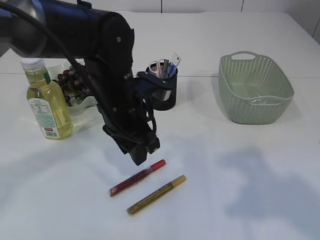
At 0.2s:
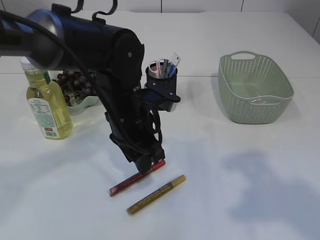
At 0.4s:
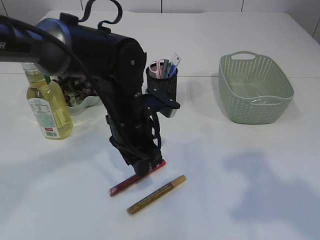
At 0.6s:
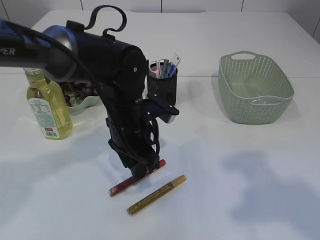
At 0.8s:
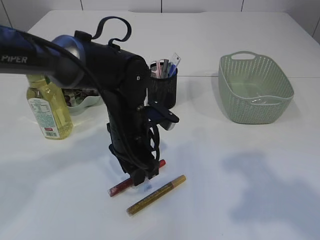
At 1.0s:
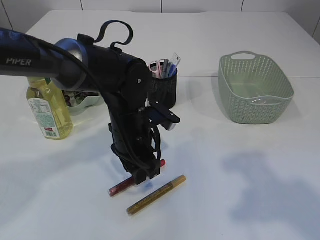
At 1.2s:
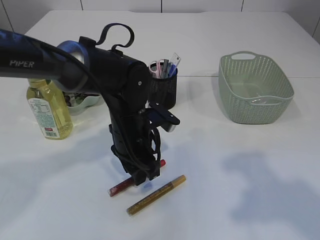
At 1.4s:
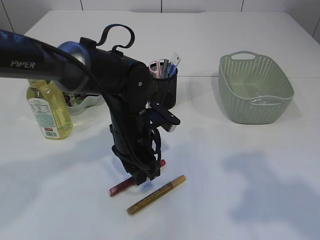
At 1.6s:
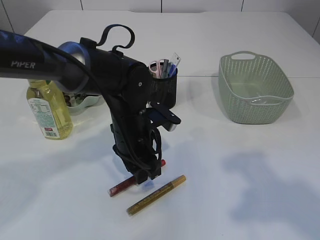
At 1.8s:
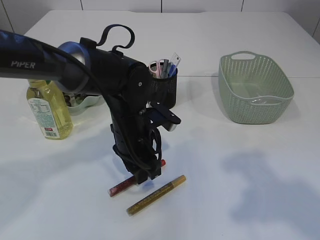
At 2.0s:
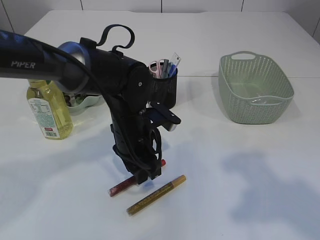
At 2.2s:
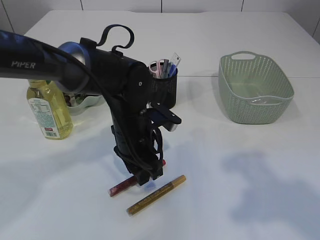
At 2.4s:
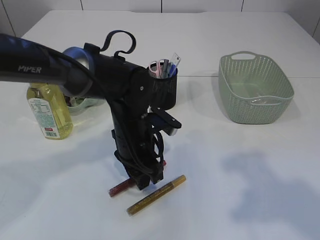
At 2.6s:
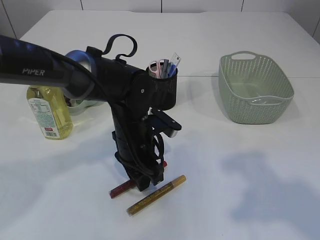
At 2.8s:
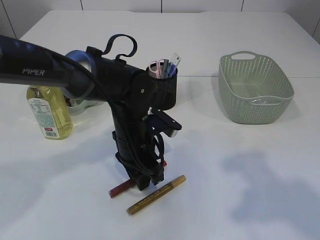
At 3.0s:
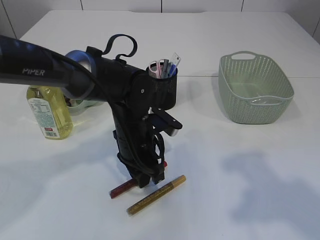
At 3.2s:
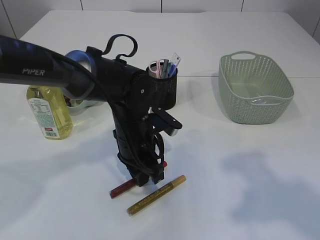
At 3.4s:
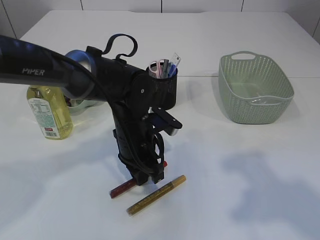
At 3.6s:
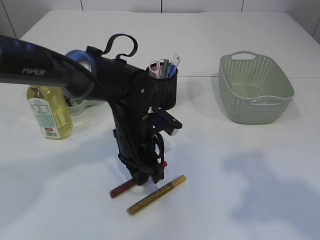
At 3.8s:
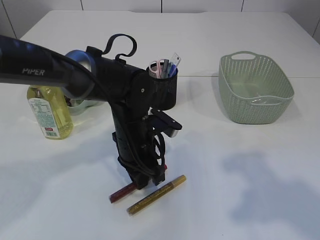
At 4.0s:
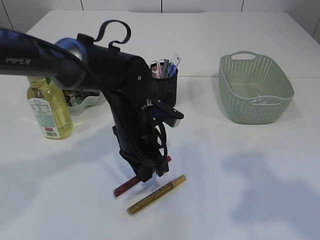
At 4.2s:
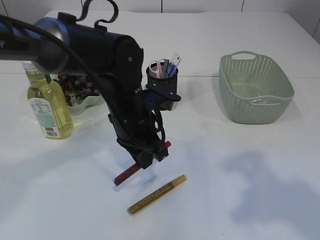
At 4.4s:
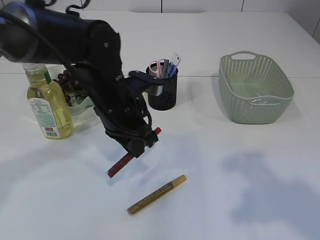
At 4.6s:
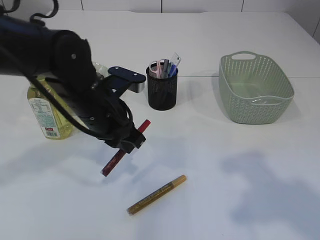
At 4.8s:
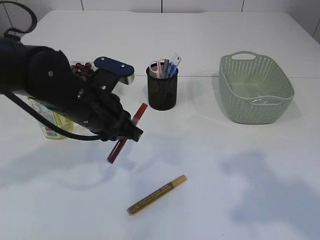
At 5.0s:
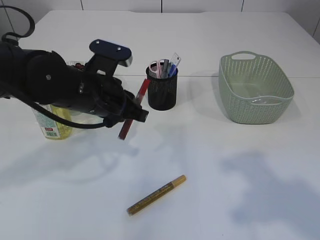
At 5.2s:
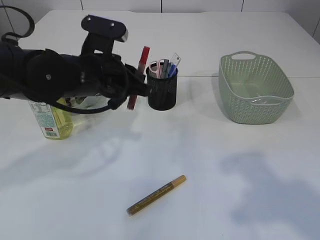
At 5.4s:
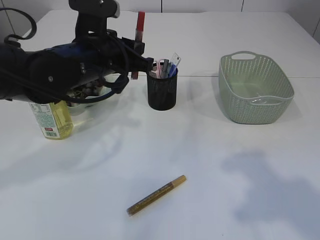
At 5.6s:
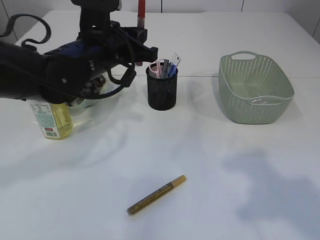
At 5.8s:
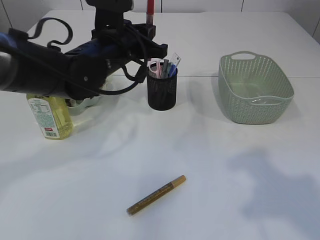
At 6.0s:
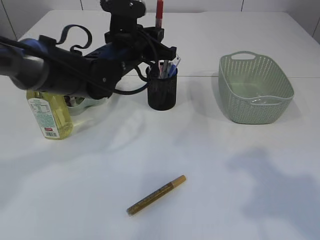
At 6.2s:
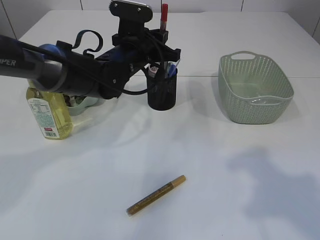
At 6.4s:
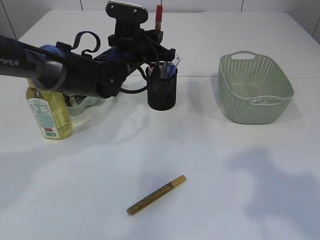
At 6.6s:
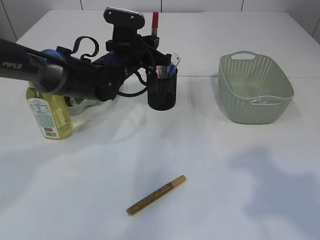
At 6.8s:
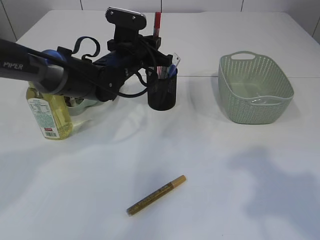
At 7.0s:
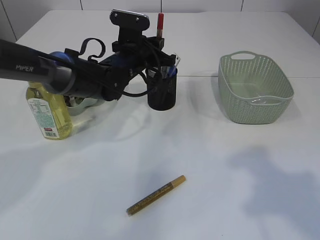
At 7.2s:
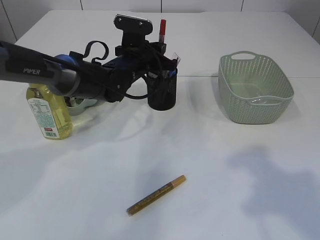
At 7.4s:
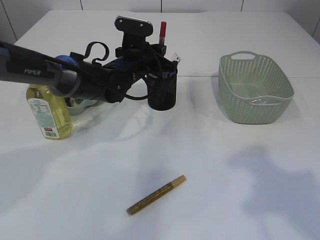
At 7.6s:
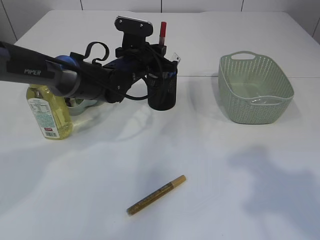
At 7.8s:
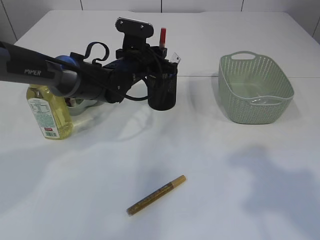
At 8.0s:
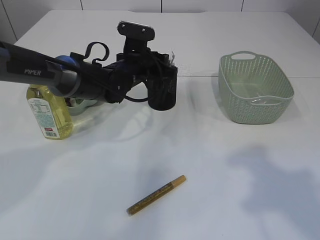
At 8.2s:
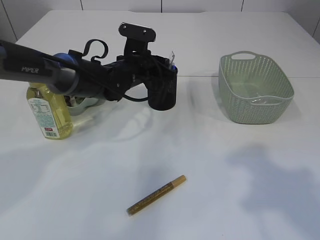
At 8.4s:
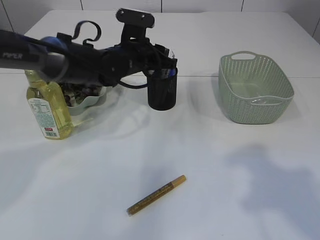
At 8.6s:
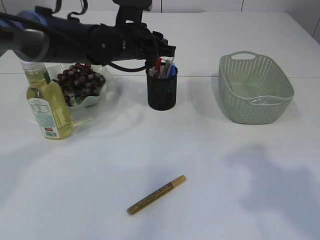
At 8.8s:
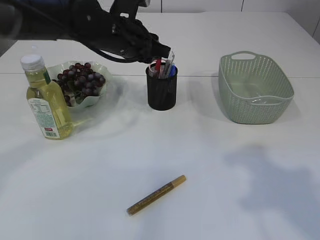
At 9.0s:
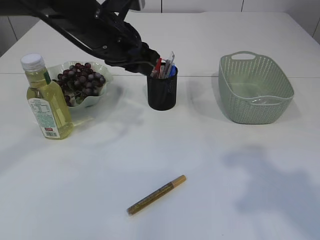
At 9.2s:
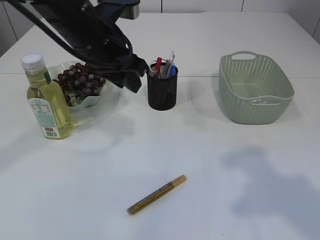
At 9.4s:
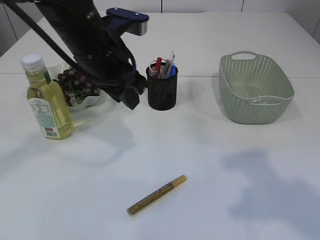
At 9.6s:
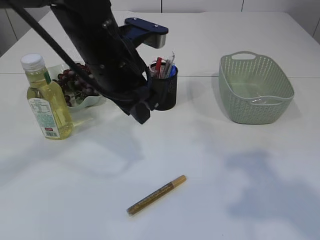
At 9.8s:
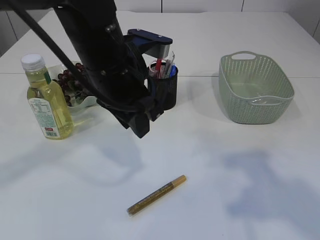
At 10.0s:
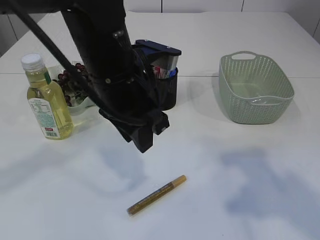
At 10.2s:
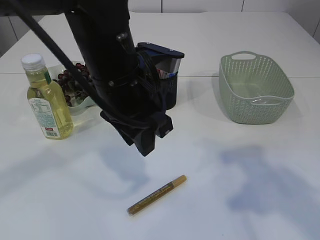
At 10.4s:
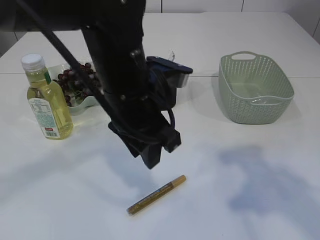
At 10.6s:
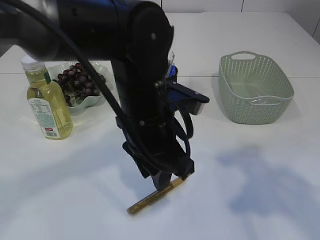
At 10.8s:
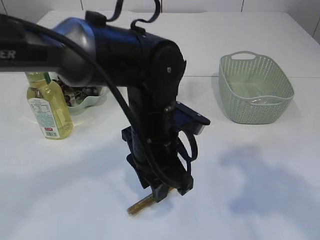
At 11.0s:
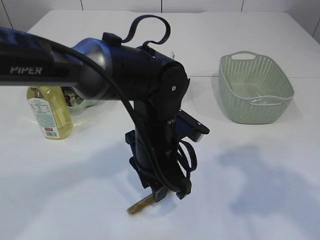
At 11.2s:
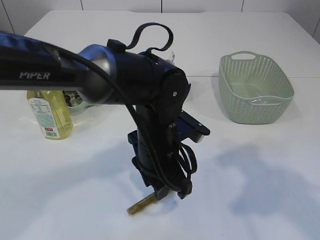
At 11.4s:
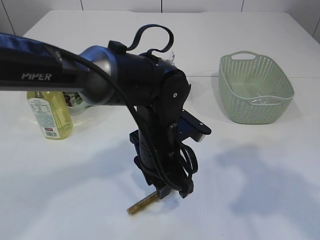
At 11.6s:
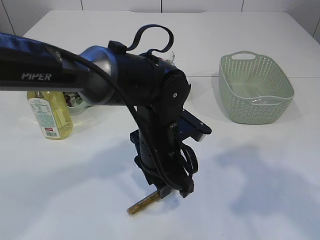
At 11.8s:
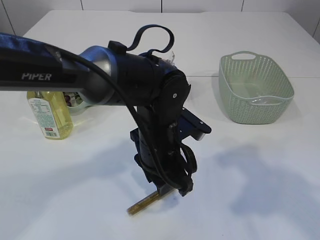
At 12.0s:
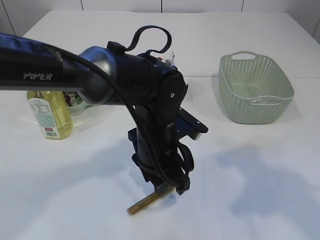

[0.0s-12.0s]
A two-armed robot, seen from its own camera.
Step, 0.0s to 4.8s: pick up the red glue.
Step, 5.0s to 9.2s: place the red glue into the pen holder.
0.0s to 1.6s: The left gripper heads downward, covering some 5 cm.
1.6s to 3.0s: Neither gripper changes place.
3.0s to 4.4s: The left gripper shifts approximately 5 cm upward.
4.4s to 6.0s: The left gripper moves forward, approximately 10 cm.
6.0s to 7.6s: The left gripper travels downward and forward by some 5 cm.
7.6s to 9.0s: The left gripper moves upward and backward, some 15 cm, and opens up.
9.0s to 10.4s: The left gripper moves backward, approximately 10 cm.
10.4s to 12.0s: The left gripper is displaced downward by some 10 cm.

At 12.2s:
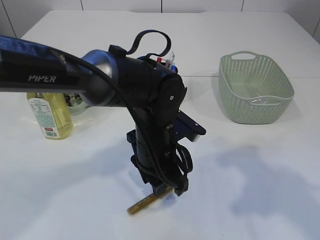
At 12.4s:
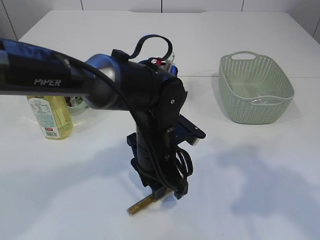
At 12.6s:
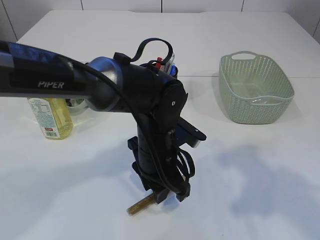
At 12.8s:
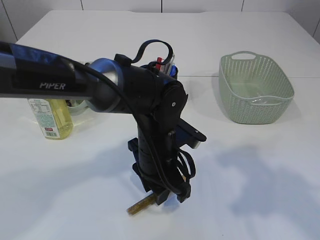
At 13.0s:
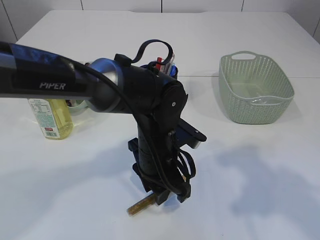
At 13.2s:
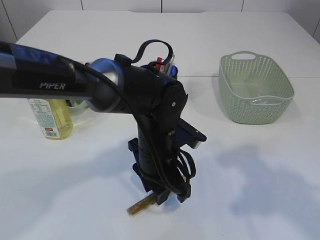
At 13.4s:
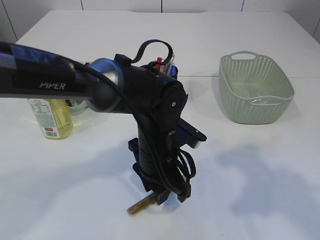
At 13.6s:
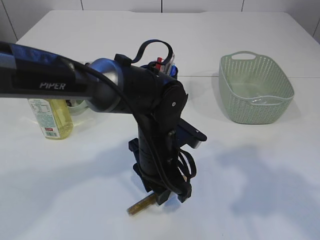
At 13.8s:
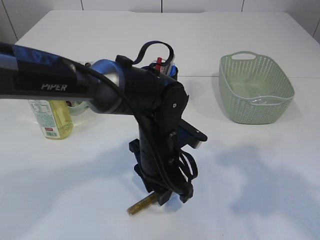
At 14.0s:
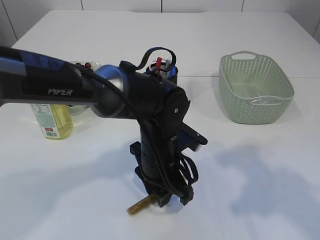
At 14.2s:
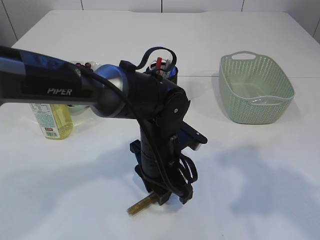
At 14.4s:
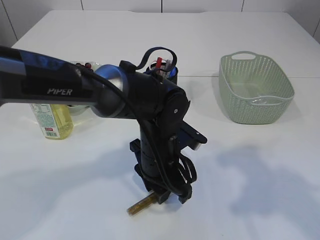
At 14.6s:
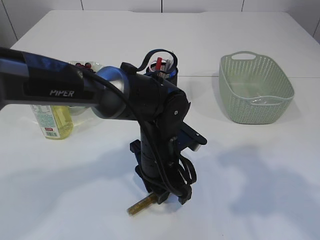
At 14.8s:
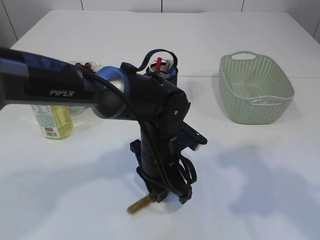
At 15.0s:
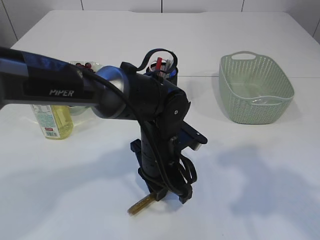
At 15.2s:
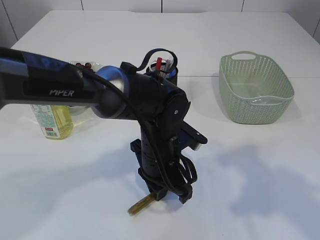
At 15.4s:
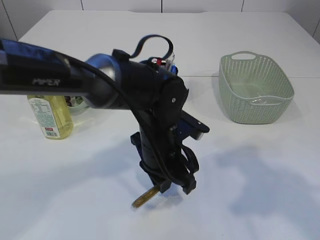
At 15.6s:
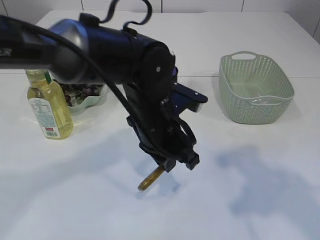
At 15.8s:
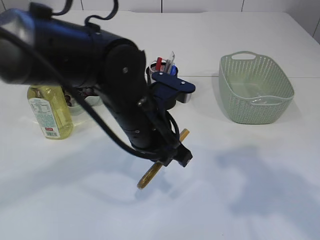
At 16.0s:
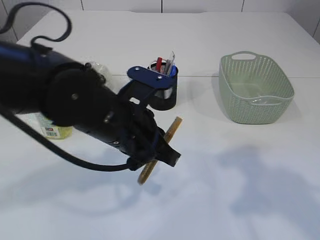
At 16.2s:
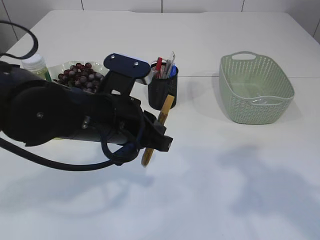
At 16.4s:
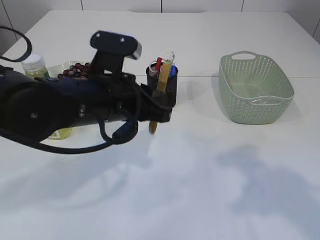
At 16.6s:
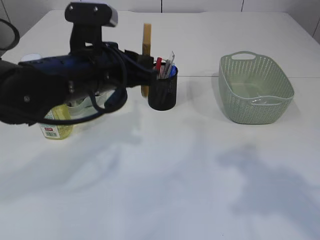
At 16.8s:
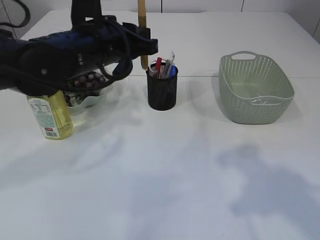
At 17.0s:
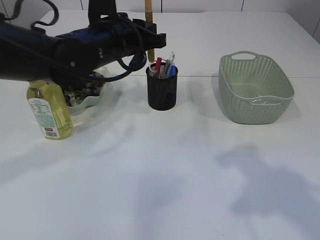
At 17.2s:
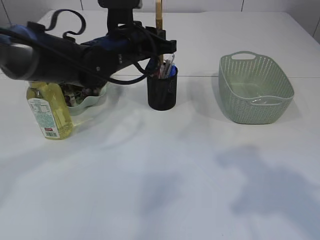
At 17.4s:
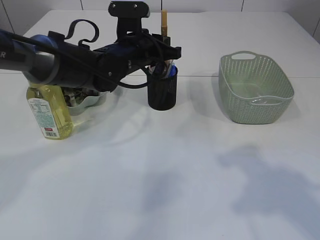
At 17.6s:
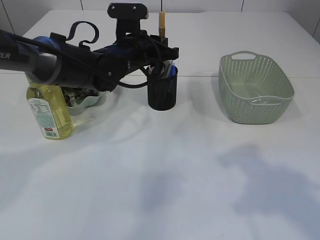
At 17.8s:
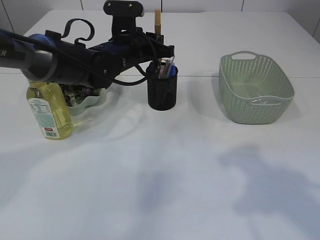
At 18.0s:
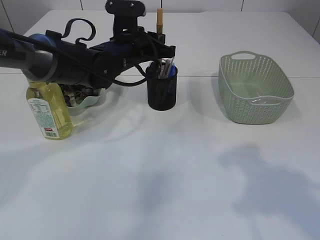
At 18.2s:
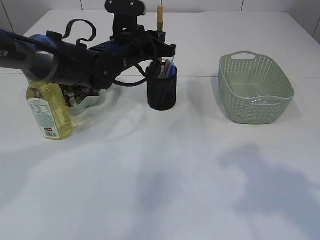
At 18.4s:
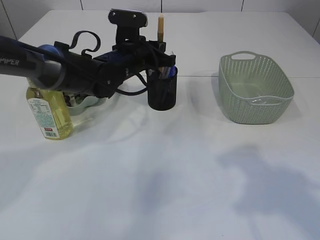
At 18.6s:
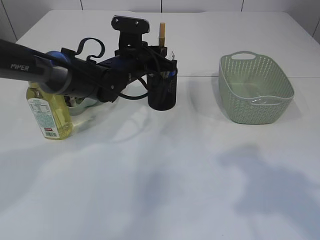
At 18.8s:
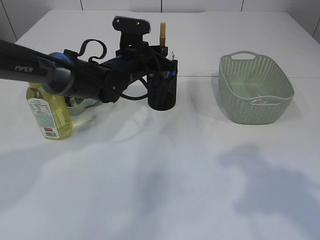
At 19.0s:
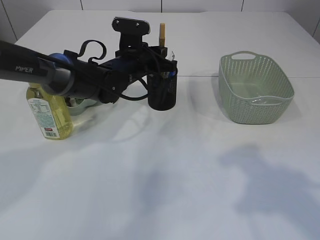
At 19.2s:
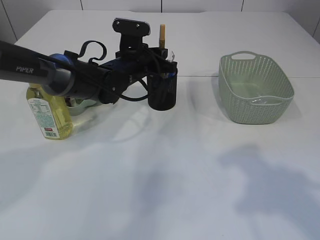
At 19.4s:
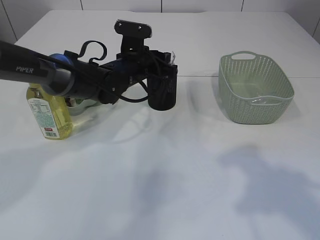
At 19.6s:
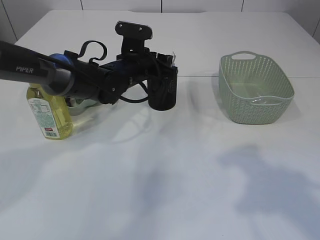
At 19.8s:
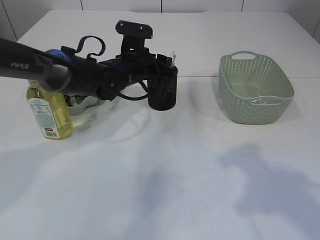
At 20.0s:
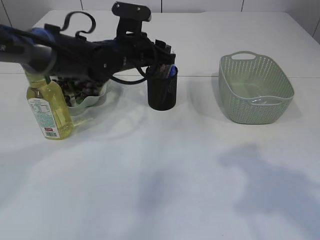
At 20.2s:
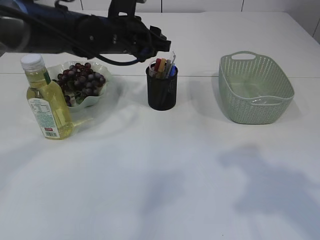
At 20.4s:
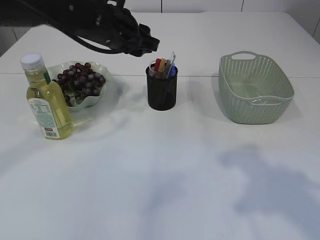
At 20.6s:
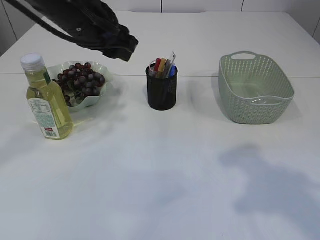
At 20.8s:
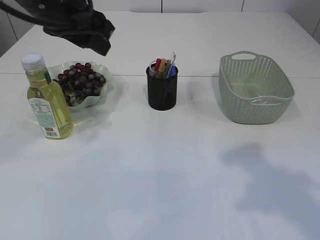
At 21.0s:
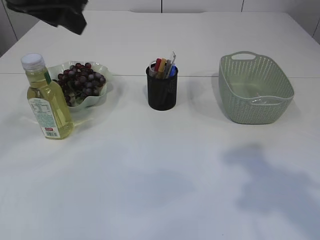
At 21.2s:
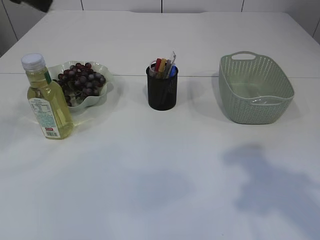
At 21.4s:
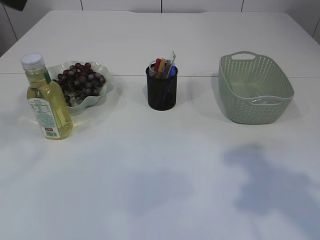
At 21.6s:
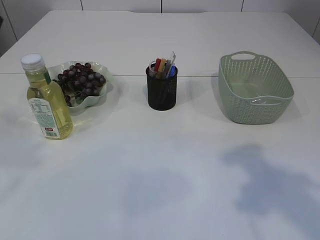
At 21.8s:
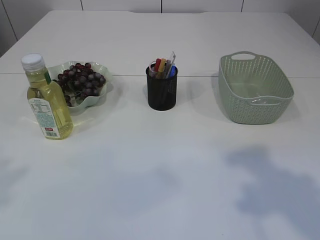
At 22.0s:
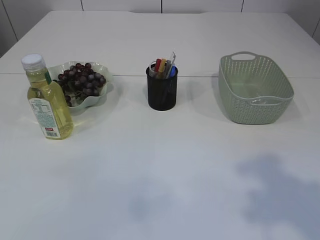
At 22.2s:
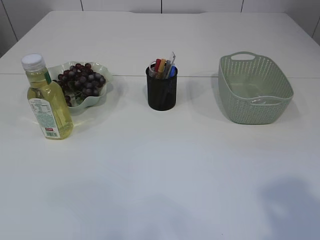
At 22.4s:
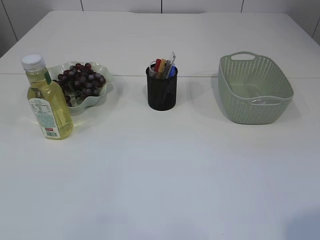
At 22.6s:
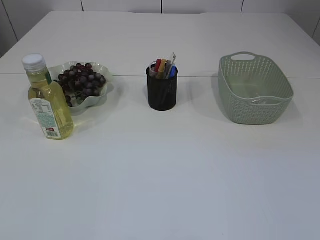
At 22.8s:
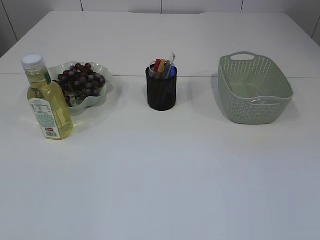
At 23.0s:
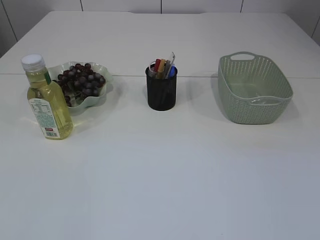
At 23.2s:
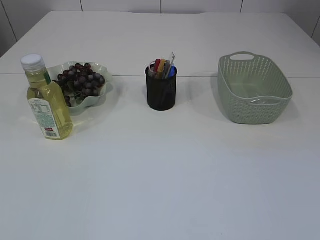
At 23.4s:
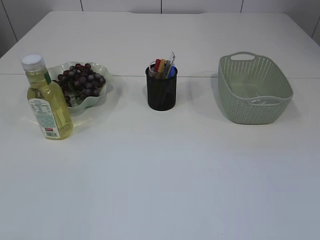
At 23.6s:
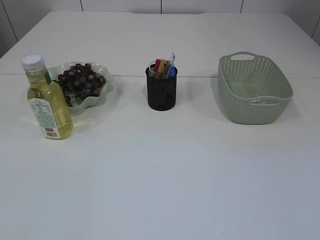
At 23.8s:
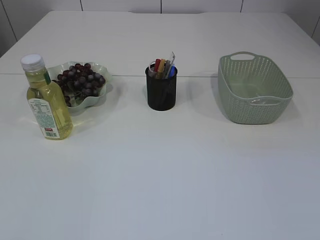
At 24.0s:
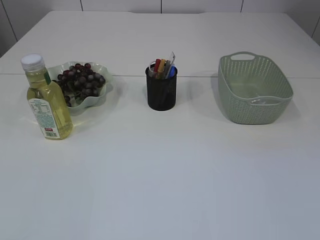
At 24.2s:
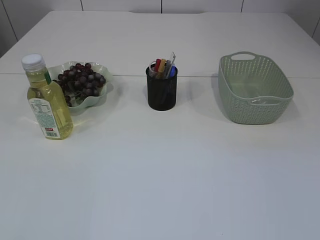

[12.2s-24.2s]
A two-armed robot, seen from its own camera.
Step, 12.2s to 16.0s: pick up the yellow glue.
Step, 16.2s to 20.6s: place the yellow glue into the pen holder.
12.2s to 13.8s: The two grippers keep their place.
13.8s to 15.2s: The left gripper closes.
15.2s to 16.6s: The left gripper shifts approximately 15 cm upward and to the left.
16.6s to 18.2s: The left gripper shifts some 15 cm forward.
18.2s to 19.8s: The left gripper opens.
19.8s to 21.2s: The right gripper opens its fingers; the left gripper moves upward, backward and to the left, roughly 30 cm.
21.2s to 22.6s: The right gripper goes roughly 15 cm backward.
